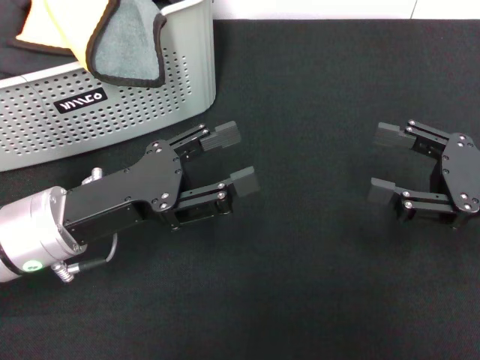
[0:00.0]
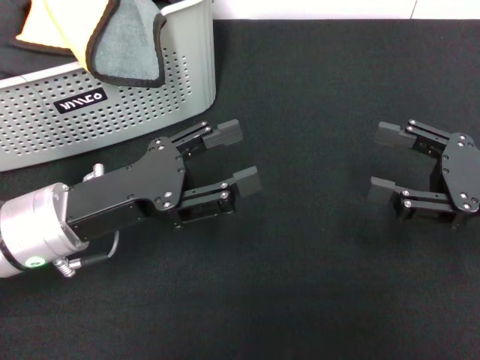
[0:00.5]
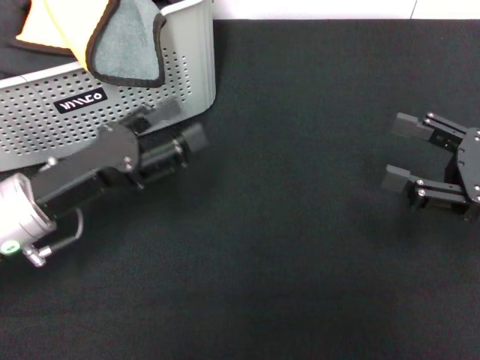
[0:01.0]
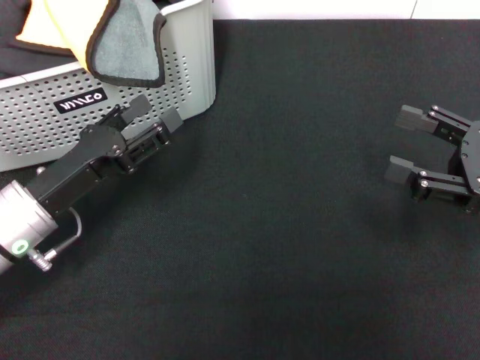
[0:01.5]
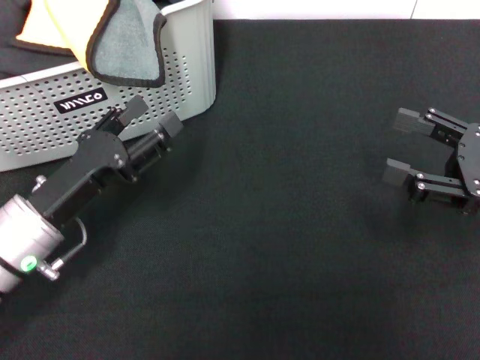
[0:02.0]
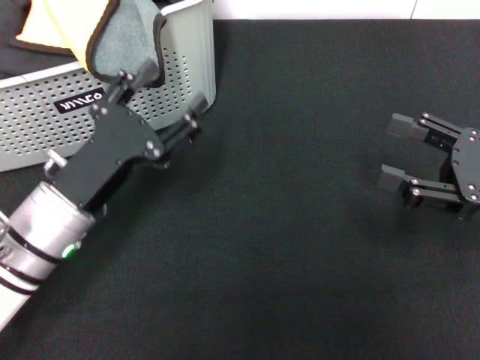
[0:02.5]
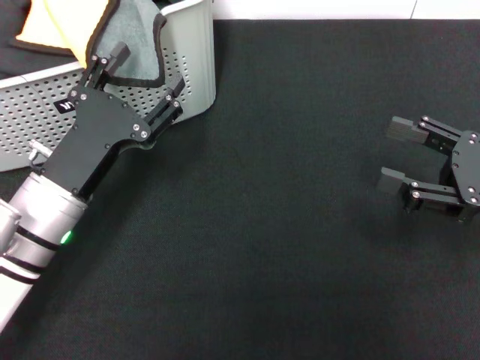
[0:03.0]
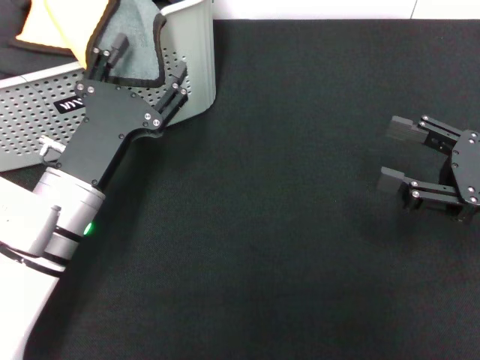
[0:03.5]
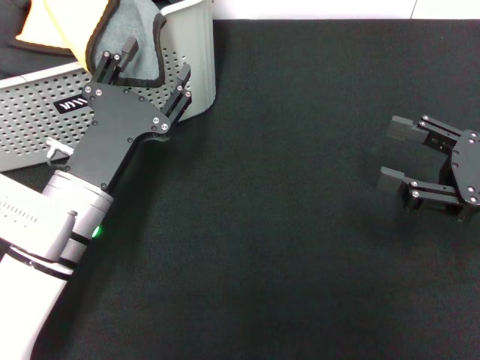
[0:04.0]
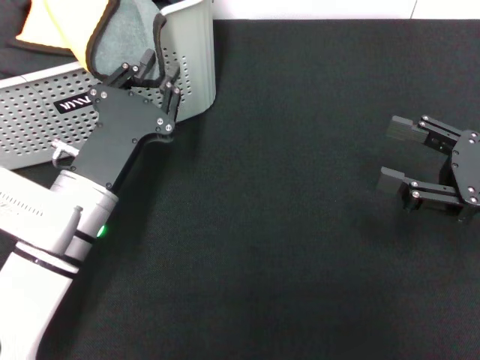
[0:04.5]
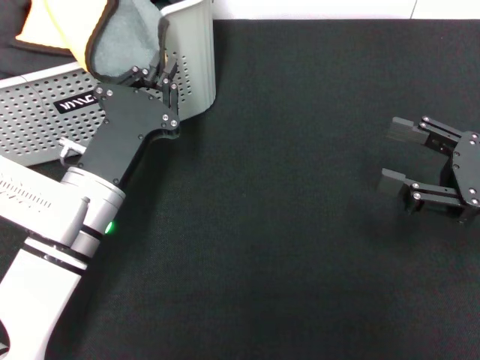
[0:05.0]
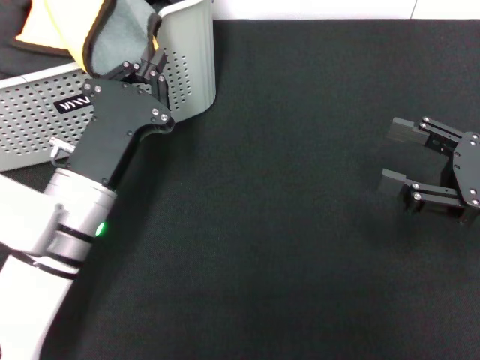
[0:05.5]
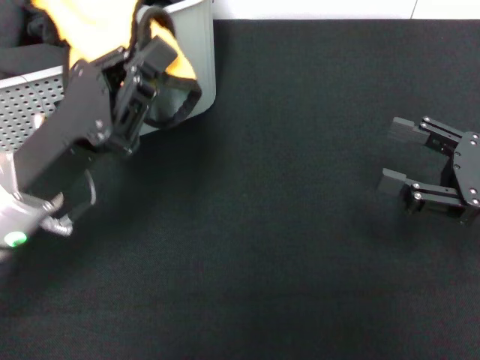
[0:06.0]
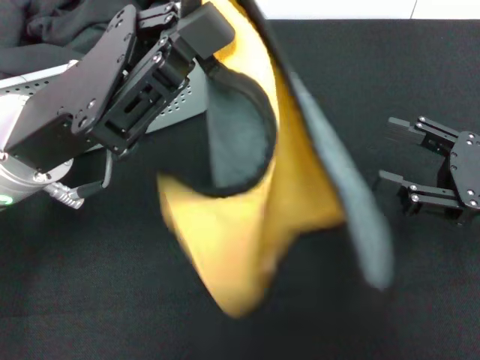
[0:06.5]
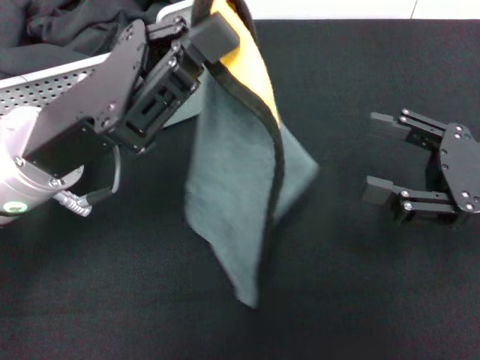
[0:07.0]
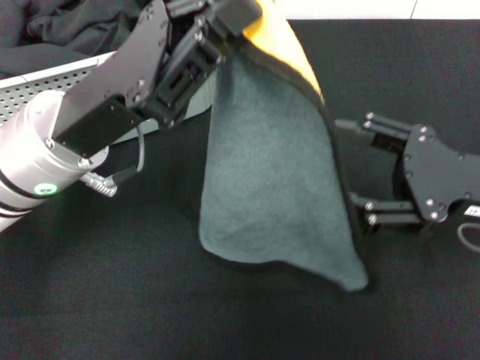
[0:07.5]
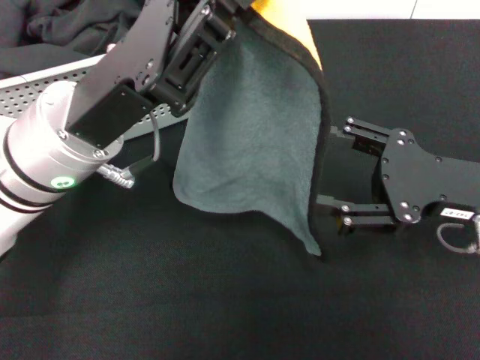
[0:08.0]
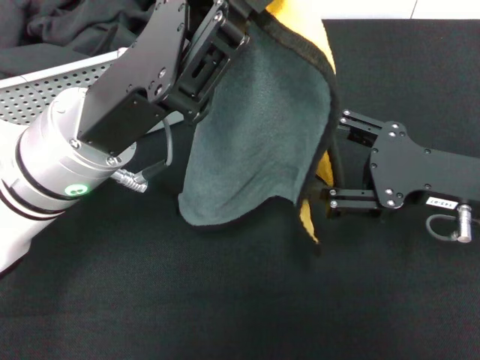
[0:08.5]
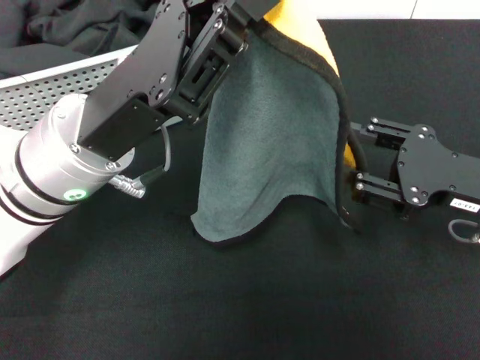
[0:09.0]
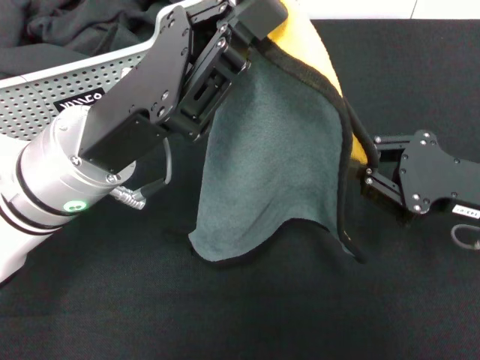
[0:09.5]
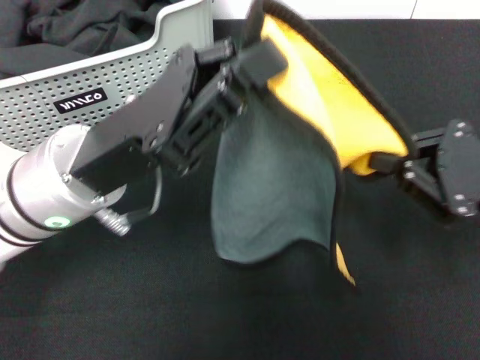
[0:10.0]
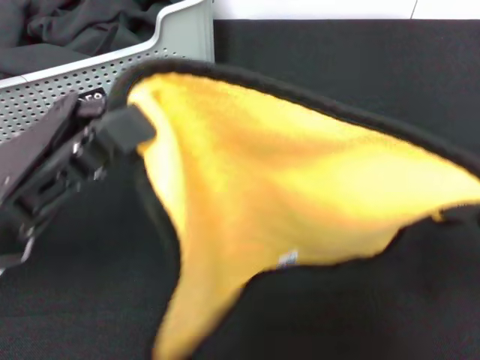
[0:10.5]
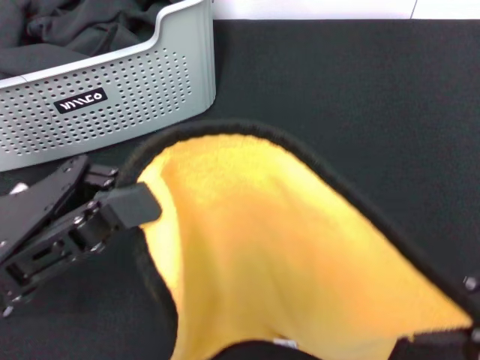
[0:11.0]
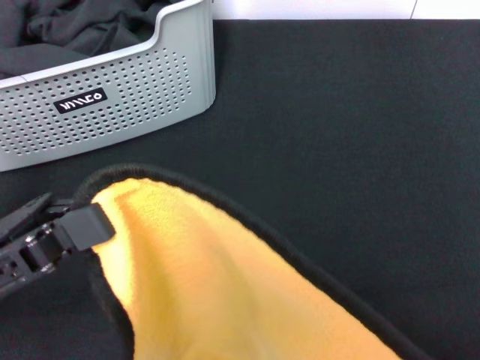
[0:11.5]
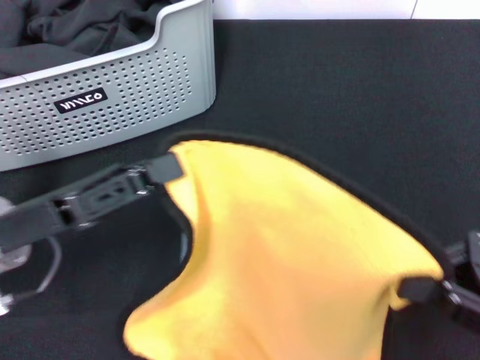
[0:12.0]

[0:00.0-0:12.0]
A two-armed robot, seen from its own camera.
Task of the whole recording: pick up the towel from the storage box and lay it flat on the black tablecloth.
Step, 0:00.0 to 0:05.0: Pick up a towel with the left gripper.
Step, 0:05.5 to 0:09.5: Spread the towel flat with the left gripper.
0:00.0 to 0:02.0: The left gripper changes place by roughly 5 cm.
0:02.0 to 0:04.0: The left gripper goes approximately 5 cm to the right.
0:04.0 to 0:06.0: The left gripper moves upward, roughly 5 cm, and closes up.
0:06.0 to 0:08.0: The left gripper moves to the right, approximately 5 cm. The right gripper shifts some 5 cm to the left.
0:08.0 to 0:10.0: The right gripper closes its fingers.
0:10.0 to 0:12.0: The left gripper is displaced to the left by about 10 cm. Meanwhile the right gripper moves backward, approximately 5 cm.

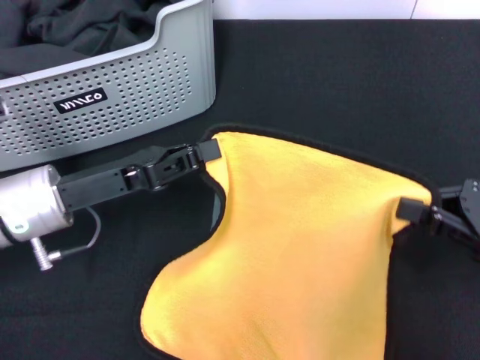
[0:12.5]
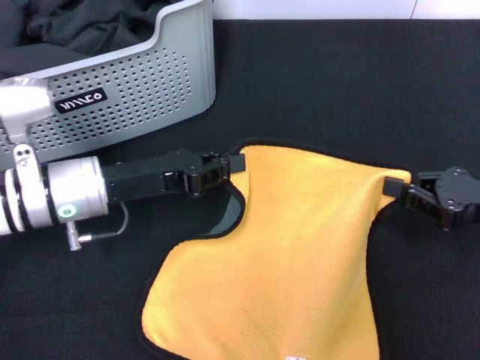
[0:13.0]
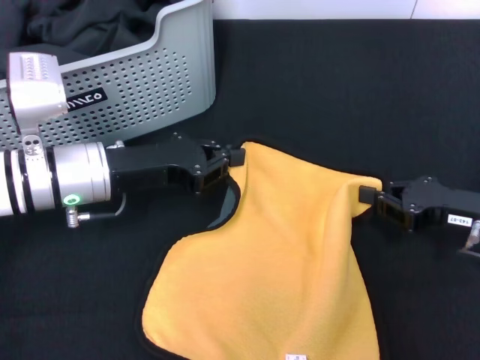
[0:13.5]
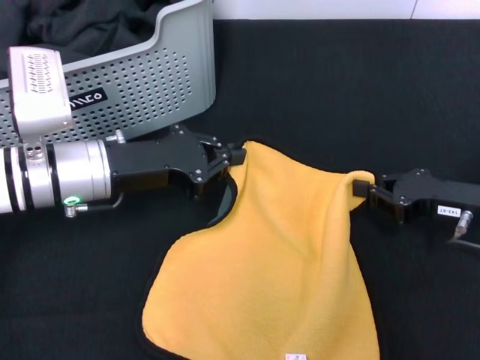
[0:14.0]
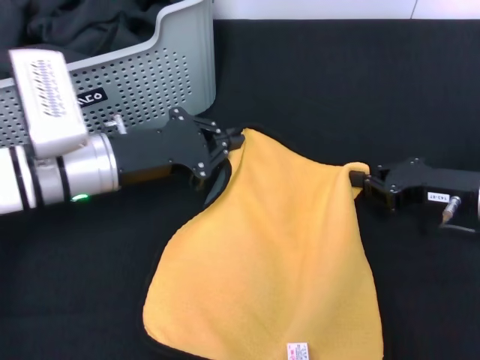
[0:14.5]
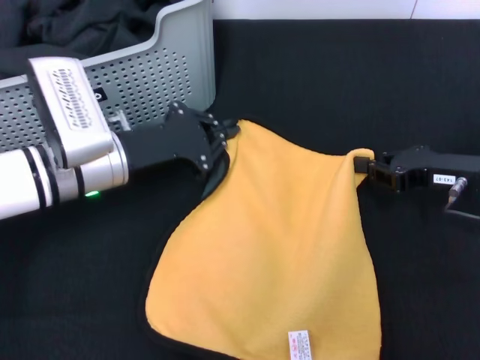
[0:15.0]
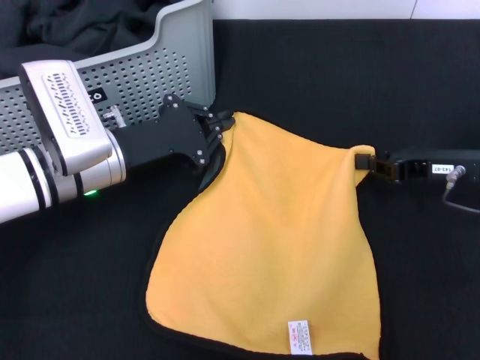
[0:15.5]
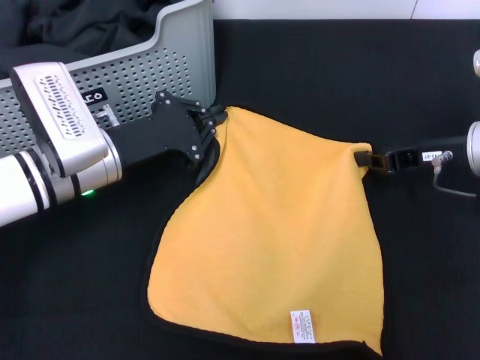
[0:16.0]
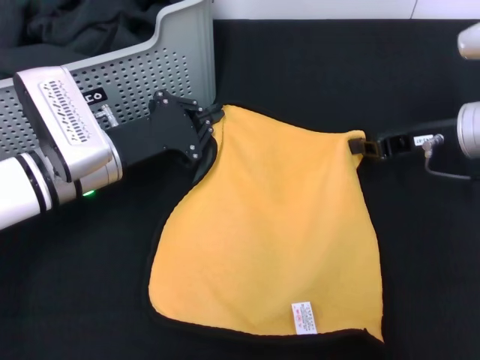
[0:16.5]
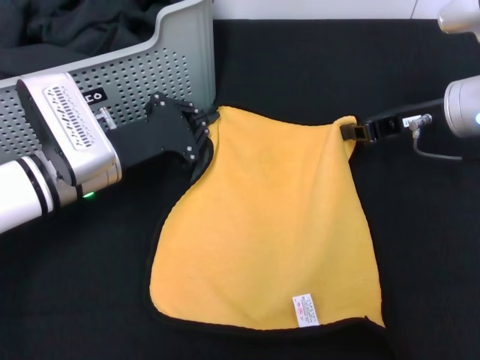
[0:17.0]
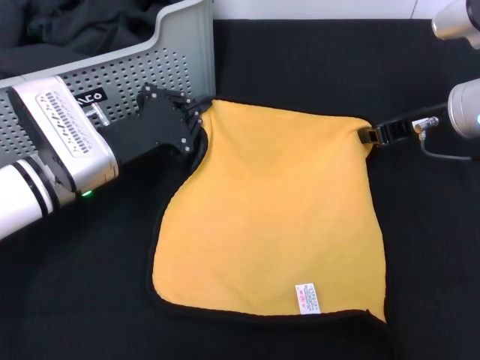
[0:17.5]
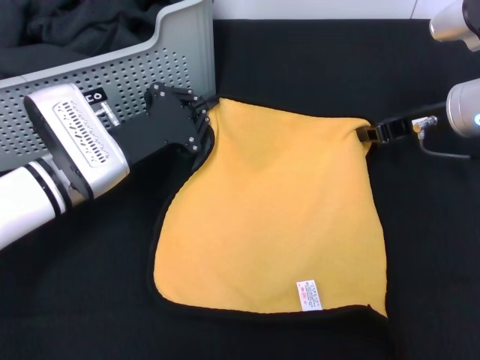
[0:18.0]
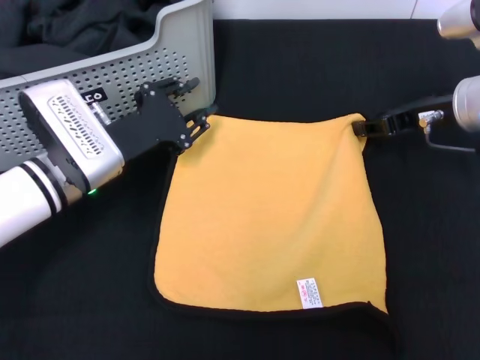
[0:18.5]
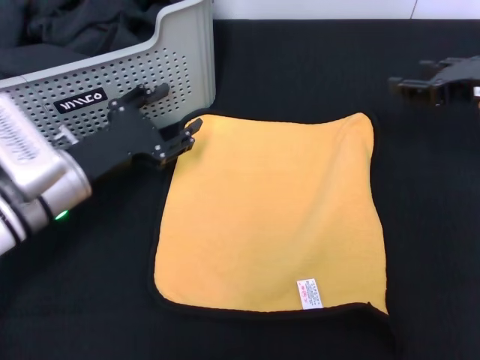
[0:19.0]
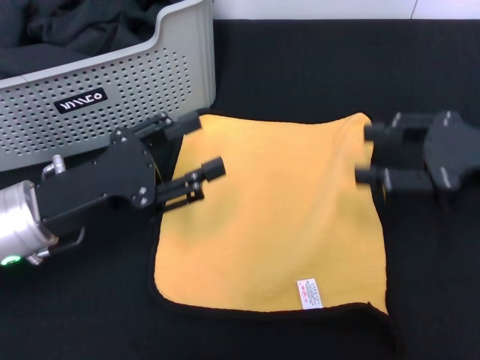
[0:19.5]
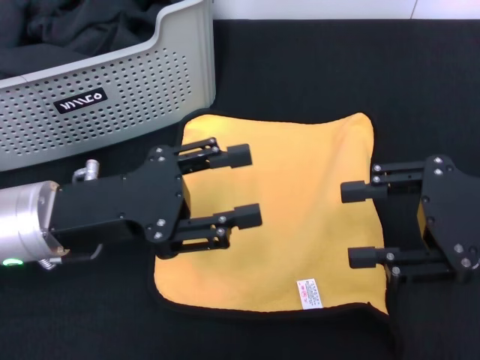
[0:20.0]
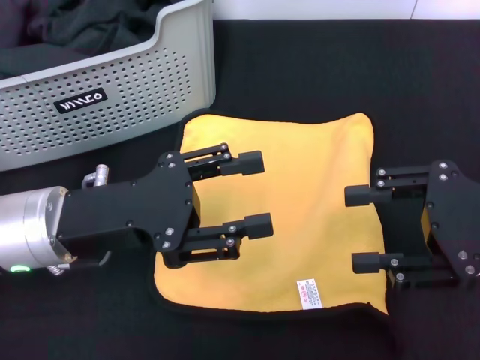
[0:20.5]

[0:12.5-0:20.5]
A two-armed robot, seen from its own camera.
Task of the whole recording: pick up the towel from the storage box and lay it flat on the black tablecloth.
Step, 0:12.5 to 0:18.5: Spread the towel flat with the right gripper.
0:12.5 to 0:14.5: The right gripper goes approximately 10 cm forward. Meanwhile the left gripper shifts by roughly 5 cm.
0:14.5 to 0:16.5: The right gripper goes about 5 cm forward.
0:16.5 to 0:18.5: The right gripper opens its fingers.
0:18.5 to 0:20.5: The right gripper goes some 15 cm backward; the left gripper shifts about 10 cm backward and upward, and opens its fingers.
